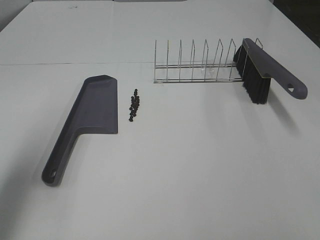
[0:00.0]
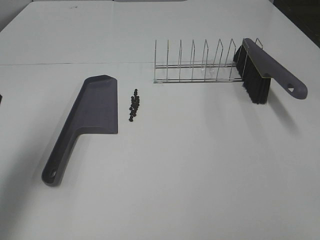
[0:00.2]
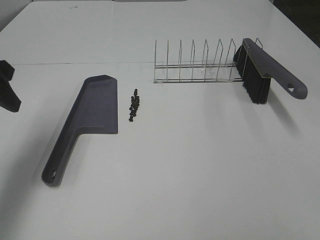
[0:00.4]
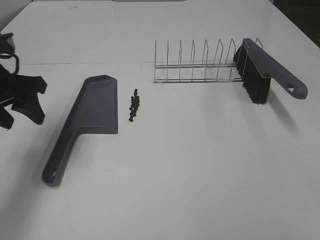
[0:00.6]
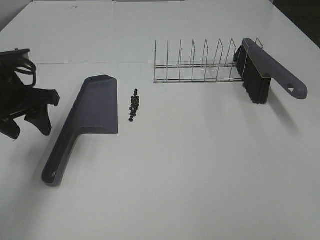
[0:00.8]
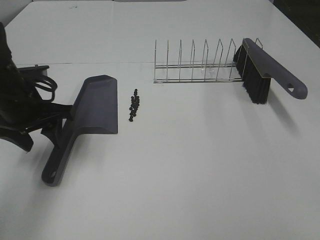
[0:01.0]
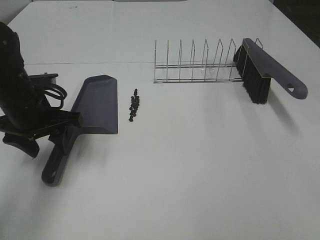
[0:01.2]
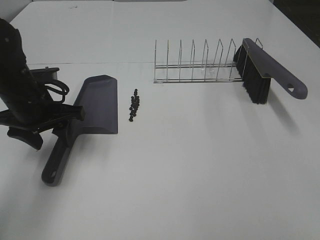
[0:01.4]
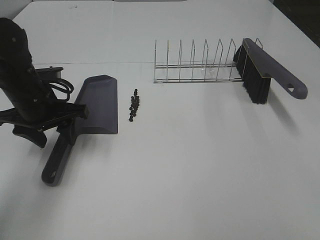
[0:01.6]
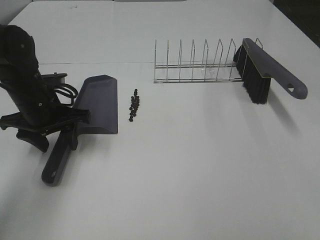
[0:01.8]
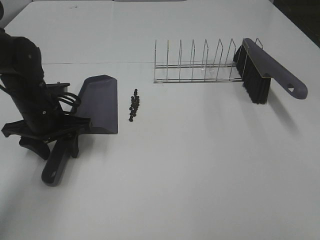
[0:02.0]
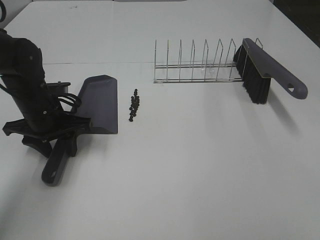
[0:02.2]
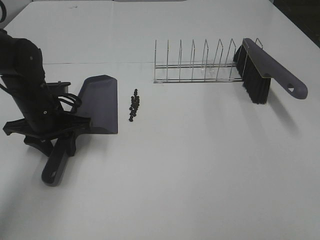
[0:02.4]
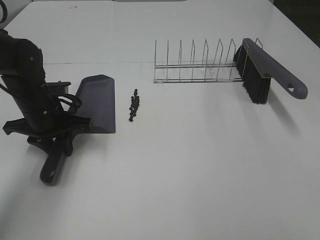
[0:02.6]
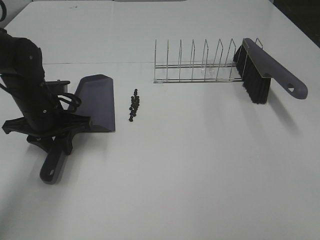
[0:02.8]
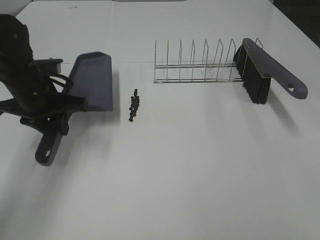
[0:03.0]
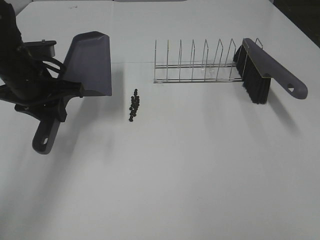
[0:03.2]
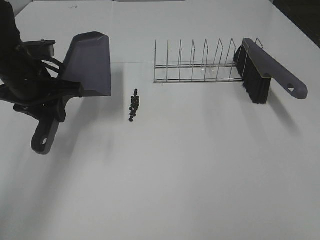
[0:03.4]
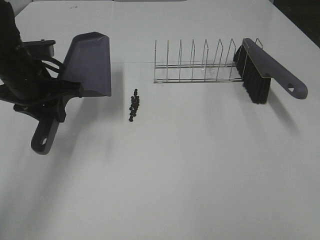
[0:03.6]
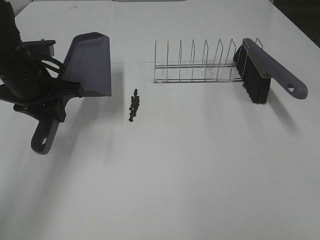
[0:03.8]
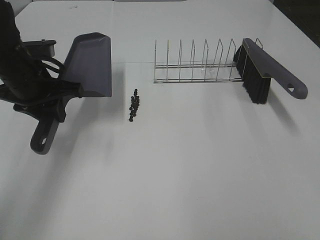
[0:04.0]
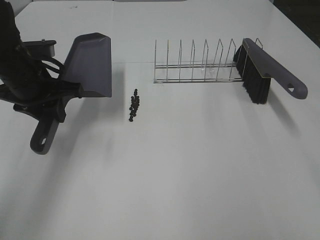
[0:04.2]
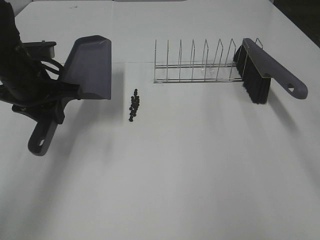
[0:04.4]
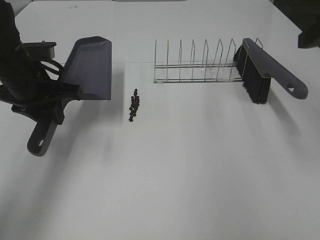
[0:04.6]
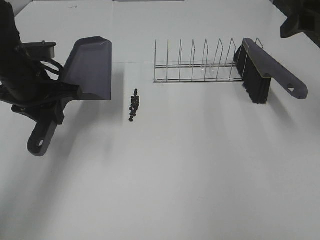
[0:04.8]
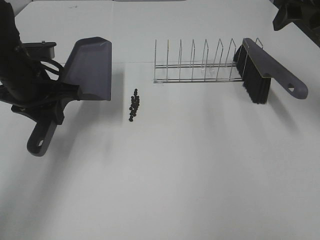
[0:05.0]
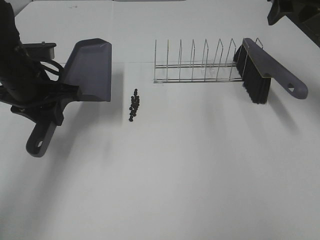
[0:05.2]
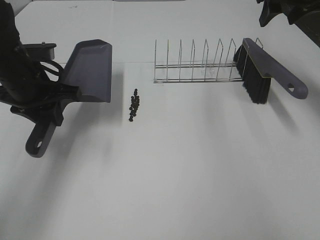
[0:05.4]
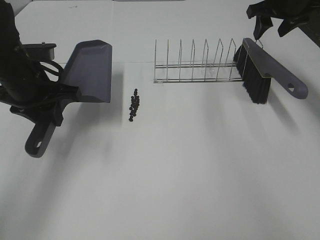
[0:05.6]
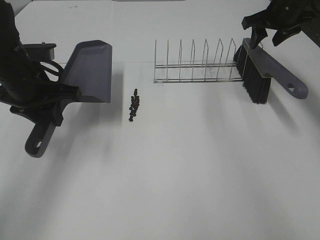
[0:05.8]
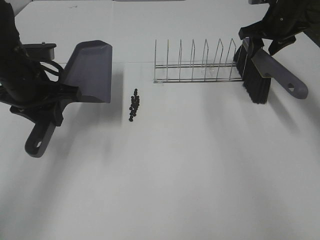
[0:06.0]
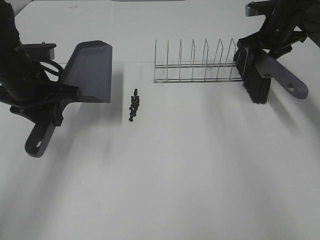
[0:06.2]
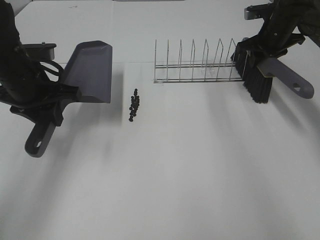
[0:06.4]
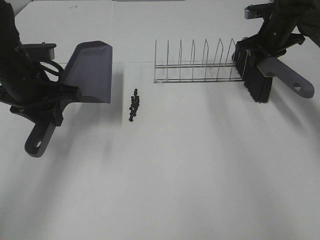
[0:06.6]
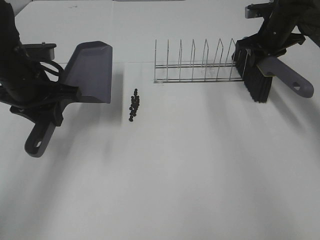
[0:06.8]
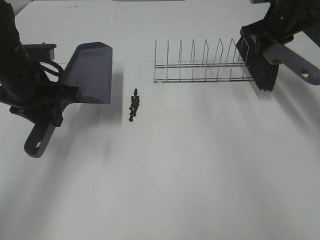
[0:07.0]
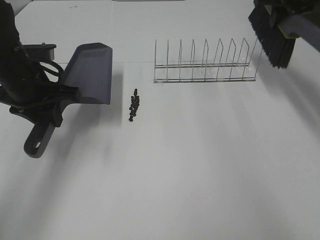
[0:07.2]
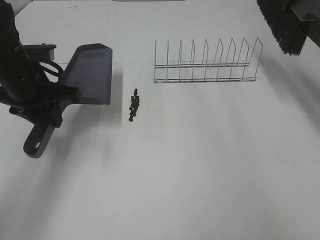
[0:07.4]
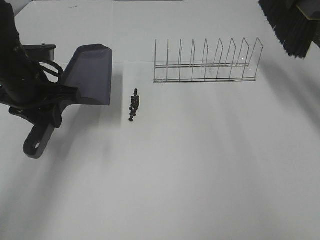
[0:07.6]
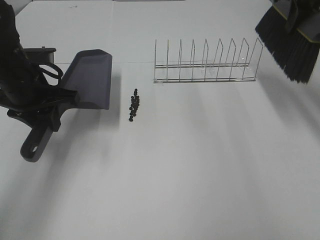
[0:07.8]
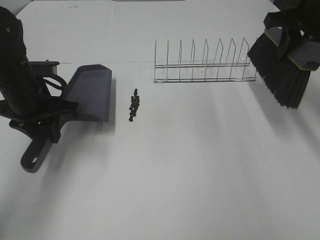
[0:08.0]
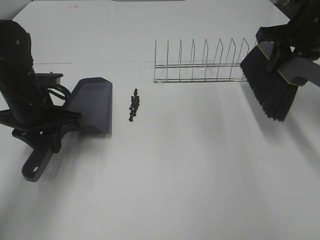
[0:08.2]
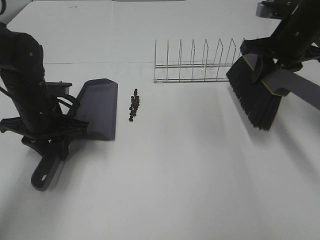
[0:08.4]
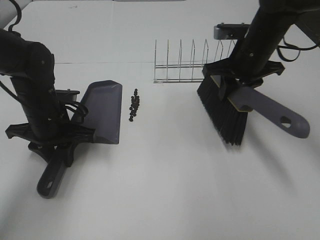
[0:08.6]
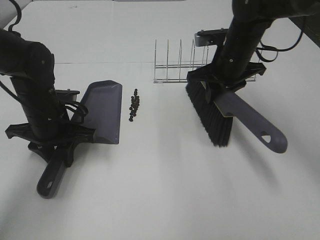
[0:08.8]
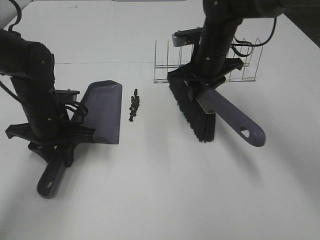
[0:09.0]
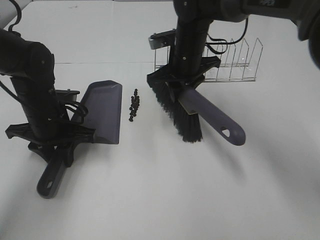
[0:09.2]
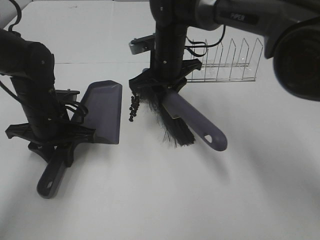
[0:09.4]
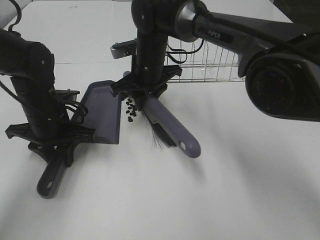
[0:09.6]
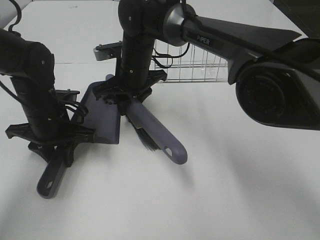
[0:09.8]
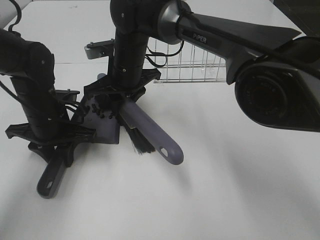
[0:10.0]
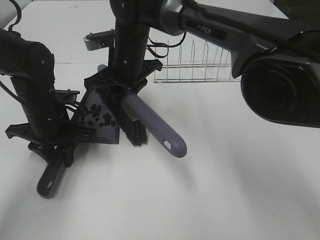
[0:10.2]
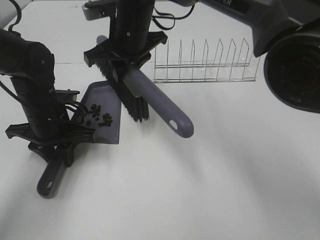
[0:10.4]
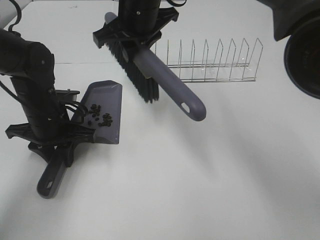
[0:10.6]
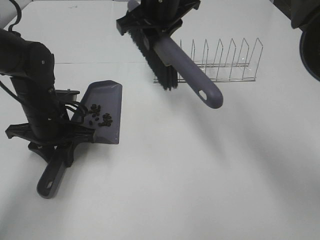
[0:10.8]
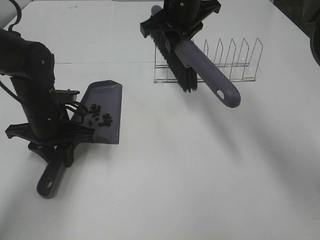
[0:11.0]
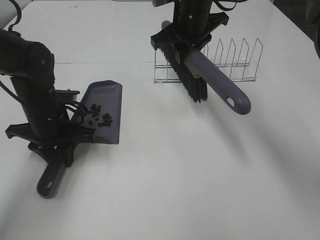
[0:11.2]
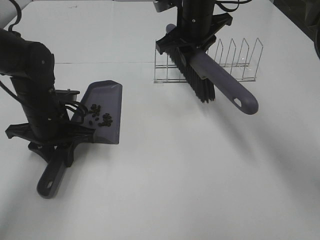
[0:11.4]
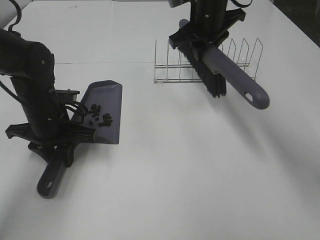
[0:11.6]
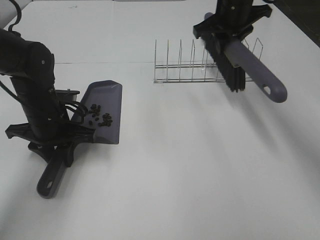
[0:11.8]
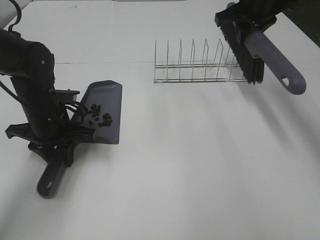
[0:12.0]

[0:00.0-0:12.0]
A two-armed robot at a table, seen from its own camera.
Task of the whole recording: Sweep Coffee Bean.
Step, 0:00.0 to 0:02.4: Left hand: grab the dustpan.
Step, 0:03.8 to 0:06.8: Right hand:grab the broom.
0:00.0 to 0:01.6: The left gripper shifts approximately 25 cm downward, forward and to the right.
0:01.6 to 0:03.0: The left gripper closes its fingers.
0:03.0 to 0:04.4: The right gripper shifts approximately 15 cm forward.
0:04.4 to 0:06.0: The right gripper travels forward by approximately 35 cm, and closes up.
0:06.0 to 0:07.6: The right gripper moves upward and backward, approximately 15 cm, and closes up.
0:07.6 to 0:09.0: The left gripper moves downward, roughly 10 cm. Meanwhile the right gripper travels to the left and downward by some 25 cm.
0:09.0 to 0:10.4: The right gripper shifts about 15 cm to the left and upward.
0:10.4 to 0:12.0: The right gripper shifts about 25 cm to the right.

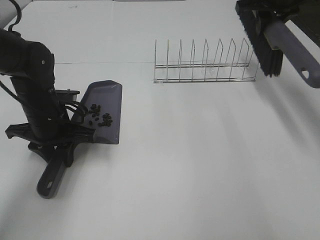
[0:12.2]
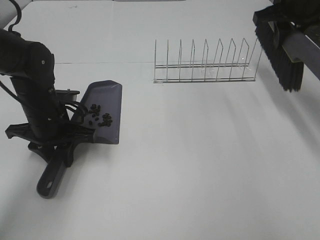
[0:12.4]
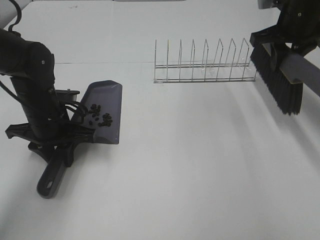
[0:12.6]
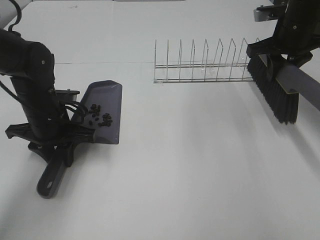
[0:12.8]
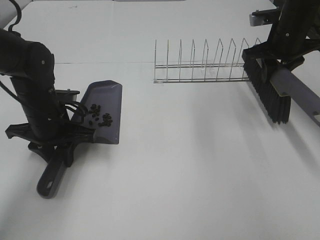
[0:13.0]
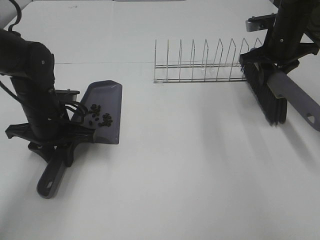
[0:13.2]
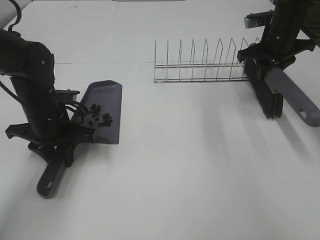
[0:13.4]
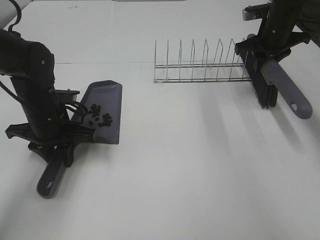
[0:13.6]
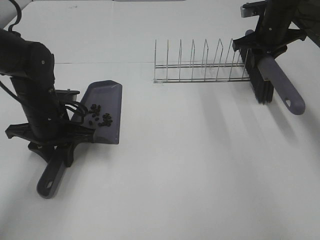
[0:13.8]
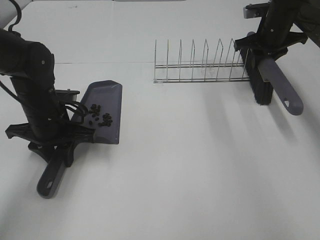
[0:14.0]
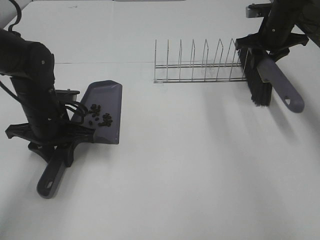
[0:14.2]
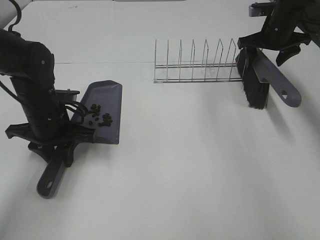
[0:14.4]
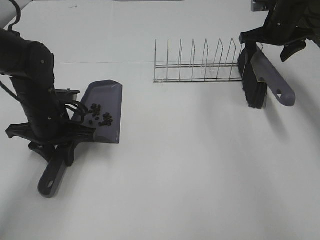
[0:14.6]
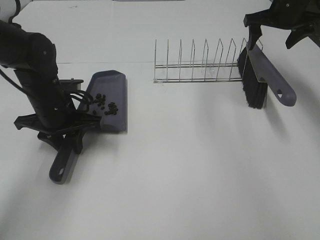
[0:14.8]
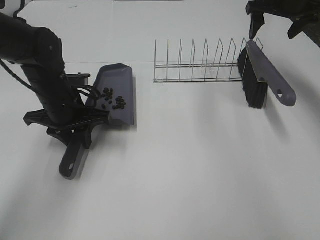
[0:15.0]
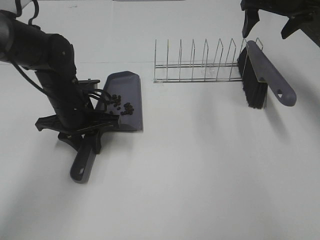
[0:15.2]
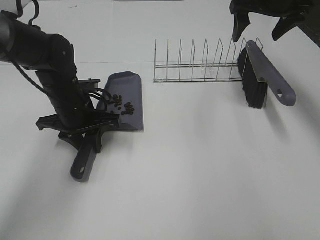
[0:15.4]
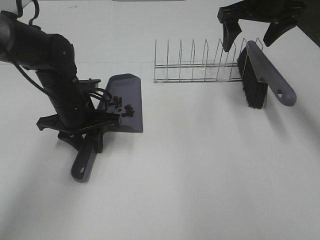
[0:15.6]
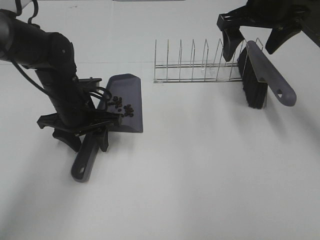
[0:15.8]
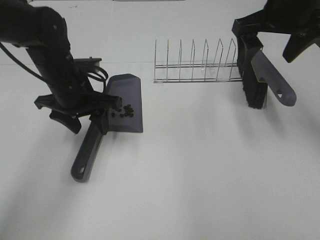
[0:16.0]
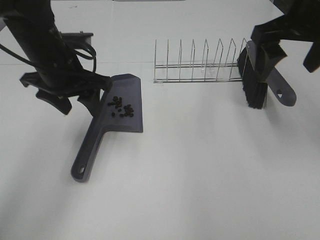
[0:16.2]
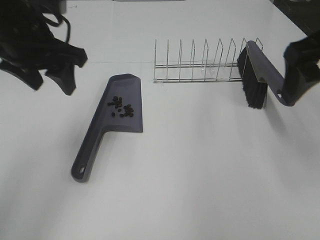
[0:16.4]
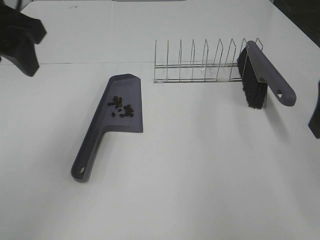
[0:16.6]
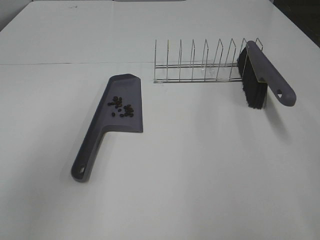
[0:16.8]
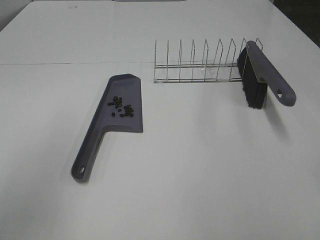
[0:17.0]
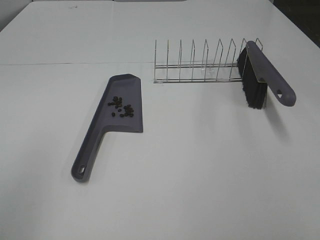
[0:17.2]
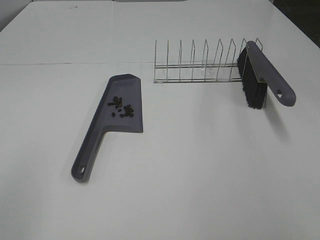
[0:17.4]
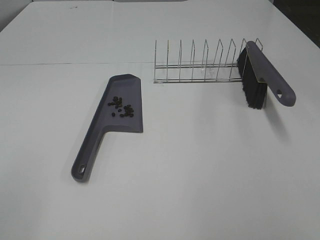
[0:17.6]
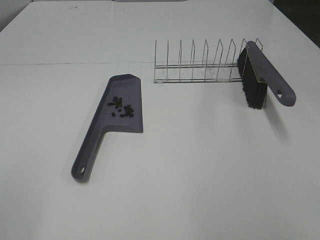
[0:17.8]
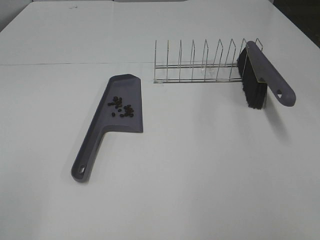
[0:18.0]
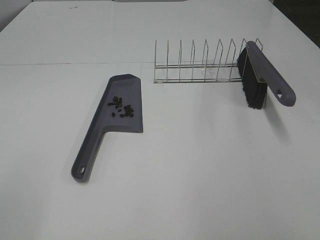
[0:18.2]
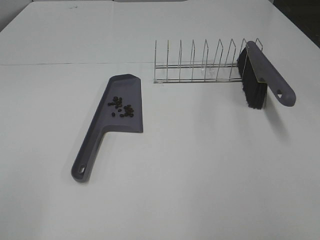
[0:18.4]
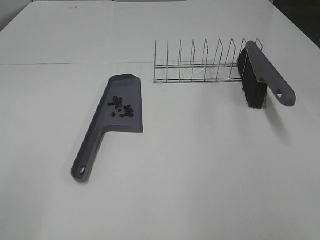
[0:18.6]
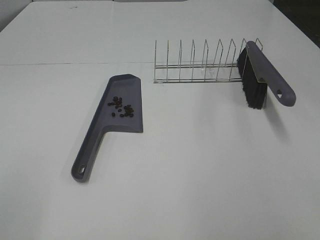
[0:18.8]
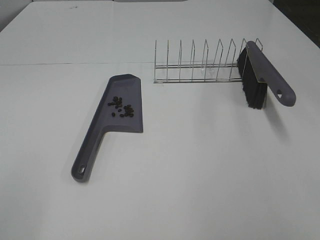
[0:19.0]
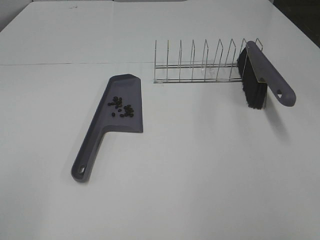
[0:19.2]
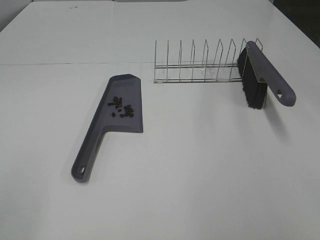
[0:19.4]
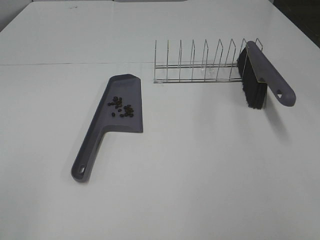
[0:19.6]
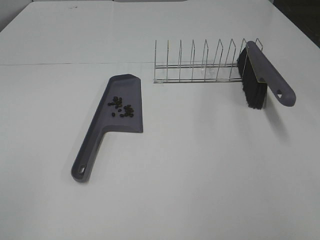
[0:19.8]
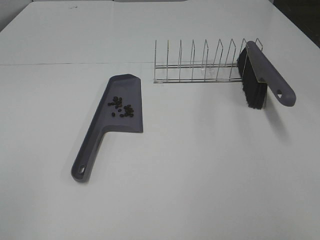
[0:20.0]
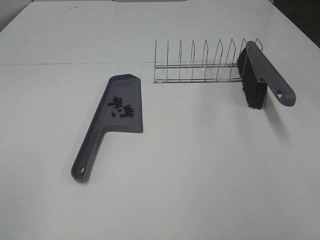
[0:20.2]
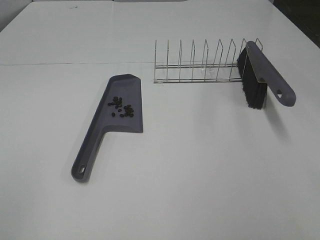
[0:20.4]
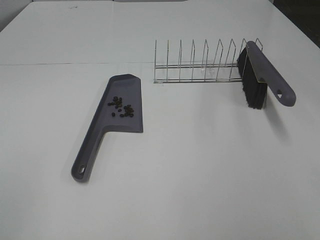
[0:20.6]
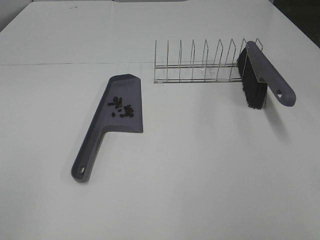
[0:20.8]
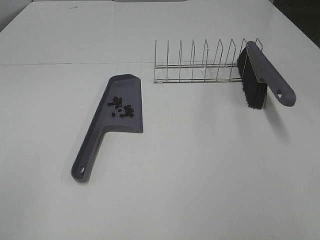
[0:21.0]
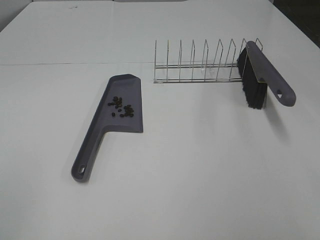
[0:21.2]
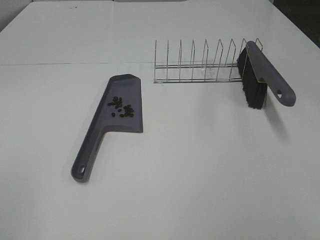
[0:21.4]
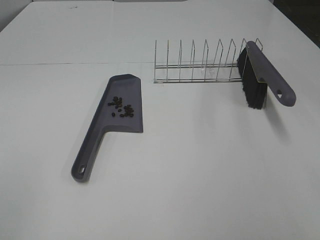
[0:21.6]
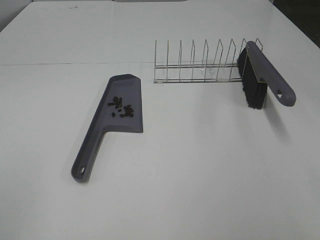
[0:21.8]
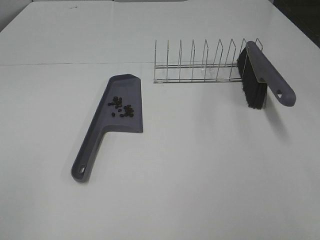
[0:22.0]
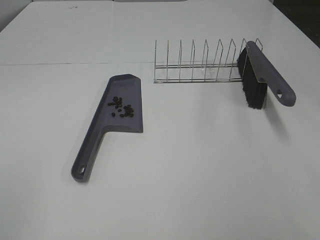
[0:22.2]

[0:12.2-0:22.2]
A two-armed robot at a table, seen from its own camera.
Task of the whole recording: Sweep Coffee Bean.
Step, 0:12.2 to 0:14.4: Right hand:place the broom on the rack.
Step, 0:14.6 to 0:16.0: Left hand:place the dustpan on the table.
0:12.2 to 0:13.6: The right gripper heads downward, covering some 10 cm.
0:13.6 to 0:15.0: The right gripper heads upward, covering about 10 cm, and opens.
0:15.0 to 0:16.4: The left gripper moves upward, approximately 15 cm, and opens up, while the right gripper is displaced backward by approximately 25 cm.
0:16.4 to 0:18.0: The right gripper is displaced backward by some 25 cm, while the left gripper is displaced backward and to the left by about 35 cm.
0:18.0 to 0:19.4: Both grippers stay about where they are.
